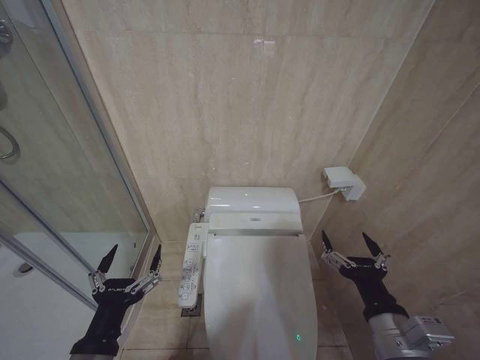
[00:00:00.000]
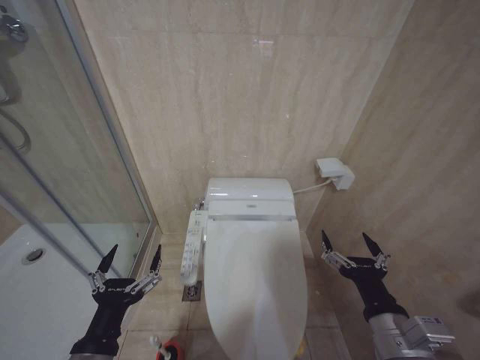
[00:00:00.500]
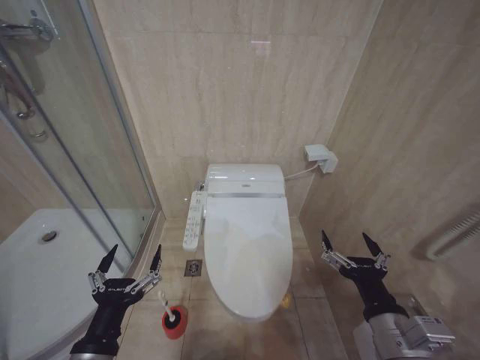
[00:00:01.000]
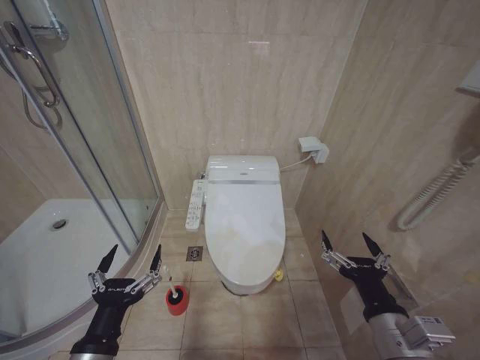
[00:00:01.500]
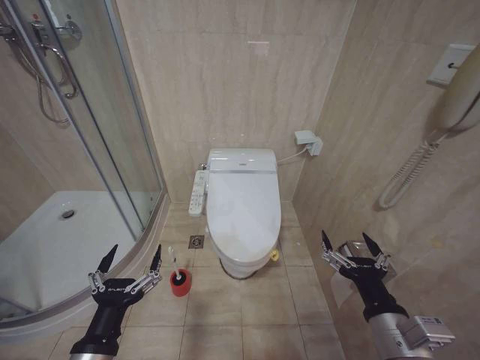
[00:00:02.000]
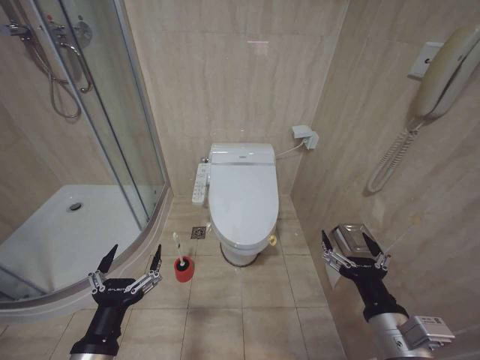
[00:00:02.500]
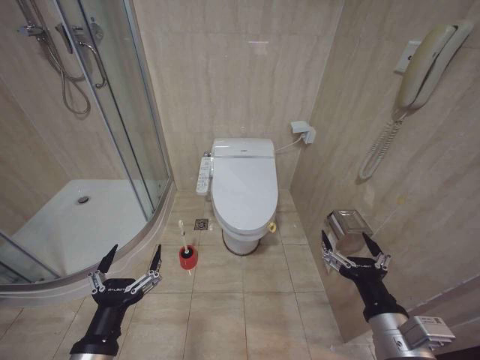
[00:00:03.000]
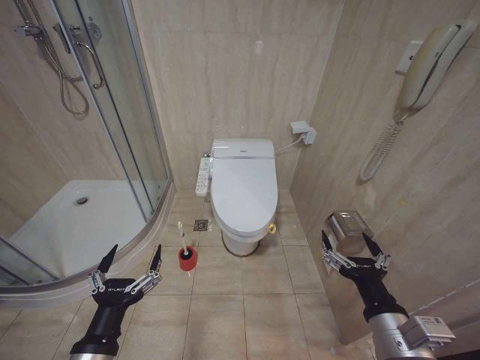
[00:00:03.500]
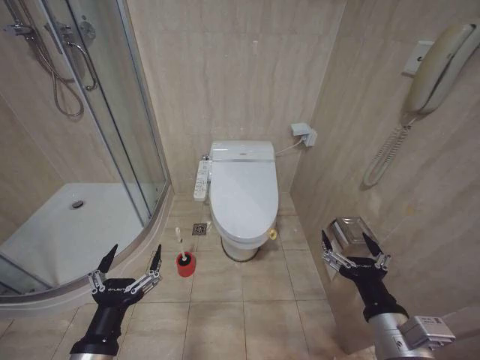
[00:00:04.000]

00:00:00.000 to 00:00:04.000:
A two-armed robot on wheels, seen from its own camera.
Task of the whole recording: Open the toilet lid, clean the toilet bowl with a toilet brush, close the toilet lid, and flush.
00:00:02.000 to 00:00:04.000: Both grippers stay put.
